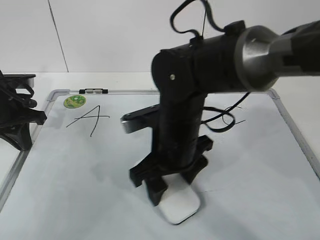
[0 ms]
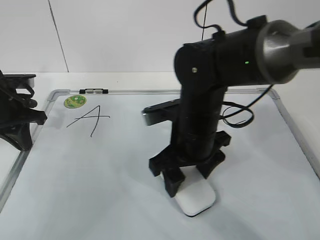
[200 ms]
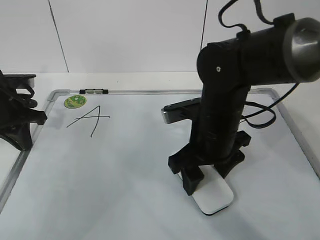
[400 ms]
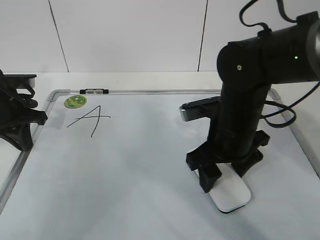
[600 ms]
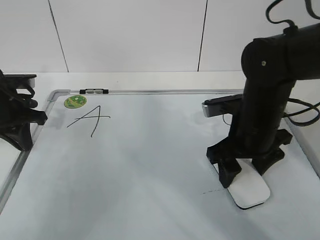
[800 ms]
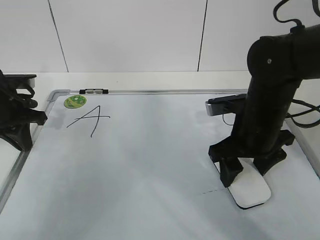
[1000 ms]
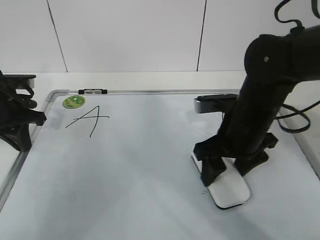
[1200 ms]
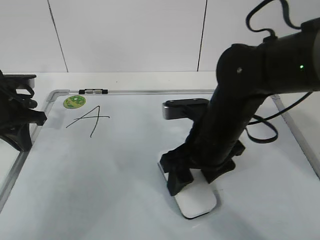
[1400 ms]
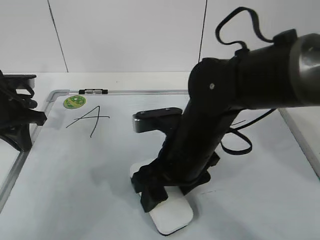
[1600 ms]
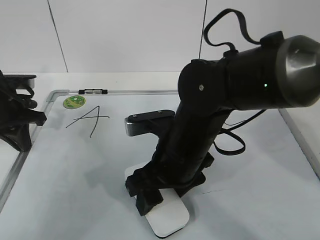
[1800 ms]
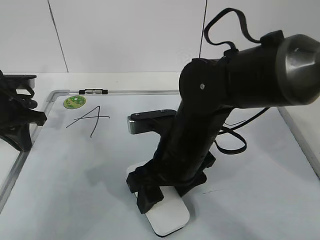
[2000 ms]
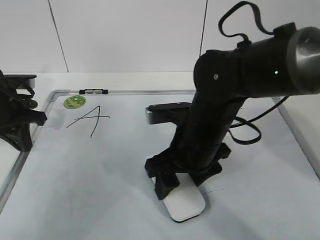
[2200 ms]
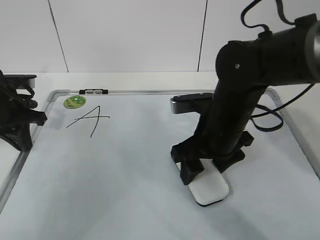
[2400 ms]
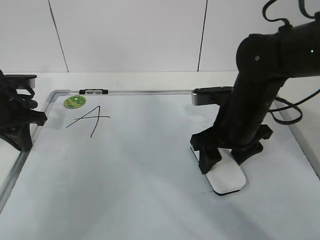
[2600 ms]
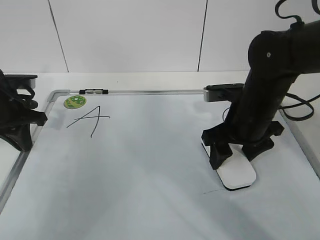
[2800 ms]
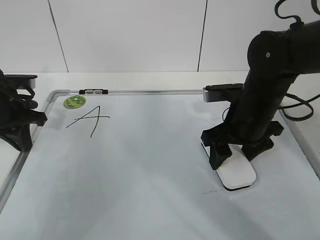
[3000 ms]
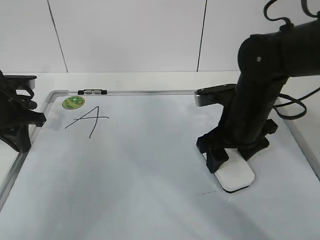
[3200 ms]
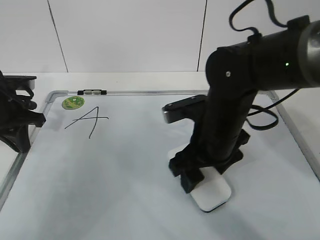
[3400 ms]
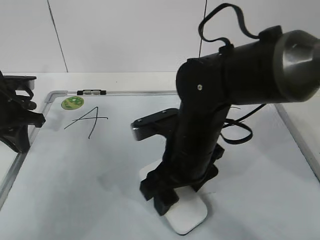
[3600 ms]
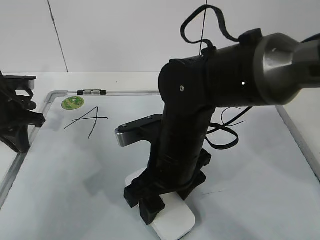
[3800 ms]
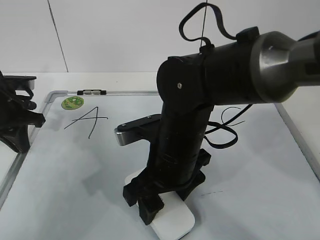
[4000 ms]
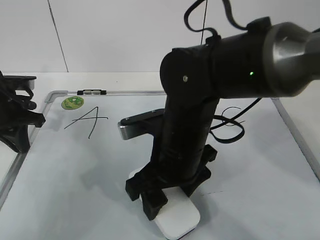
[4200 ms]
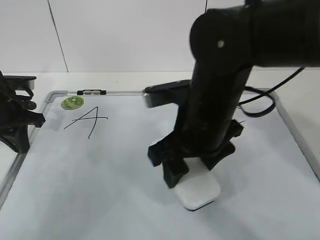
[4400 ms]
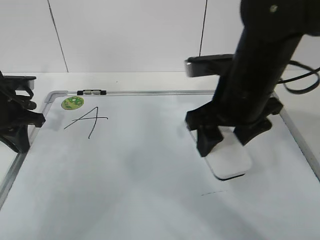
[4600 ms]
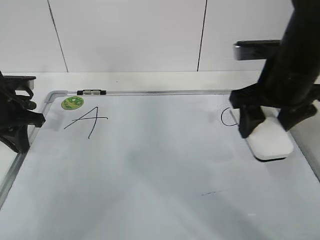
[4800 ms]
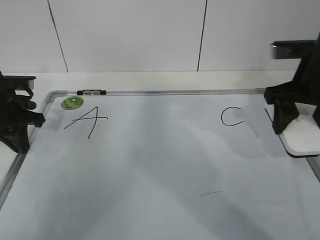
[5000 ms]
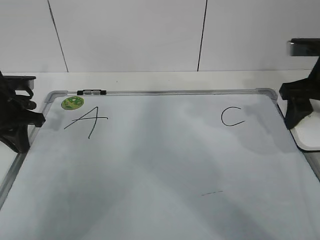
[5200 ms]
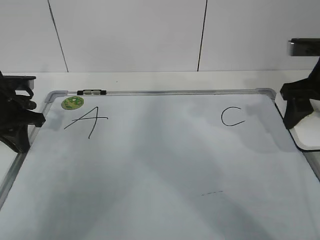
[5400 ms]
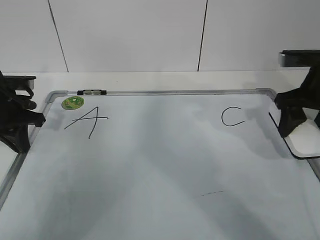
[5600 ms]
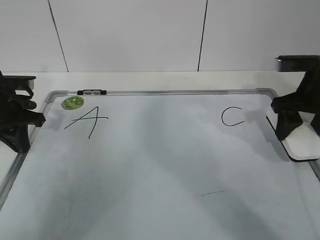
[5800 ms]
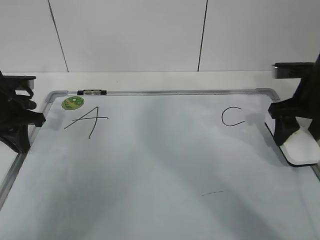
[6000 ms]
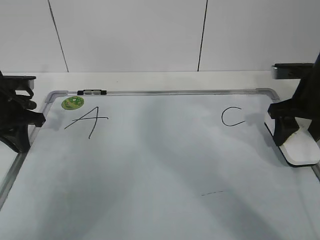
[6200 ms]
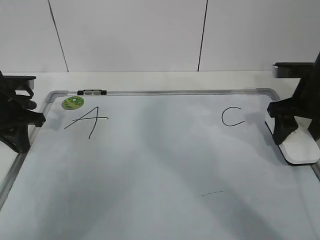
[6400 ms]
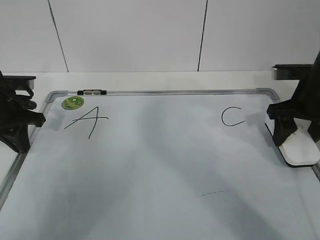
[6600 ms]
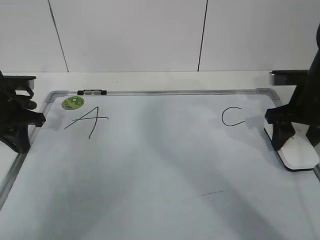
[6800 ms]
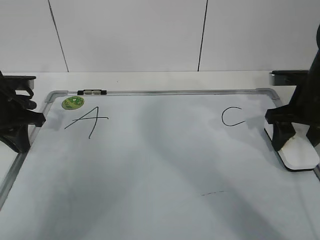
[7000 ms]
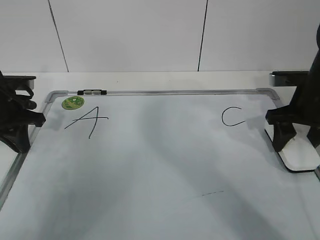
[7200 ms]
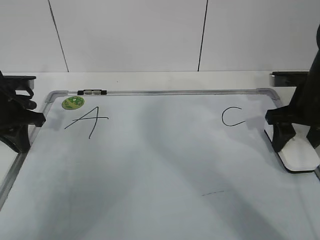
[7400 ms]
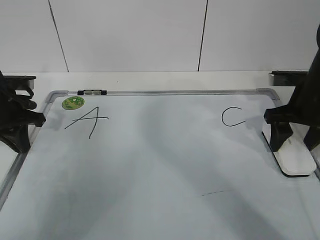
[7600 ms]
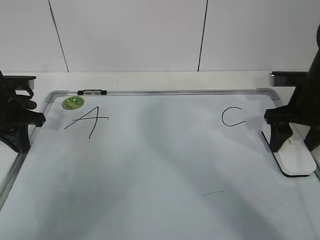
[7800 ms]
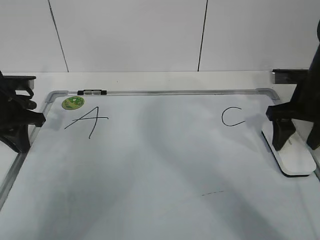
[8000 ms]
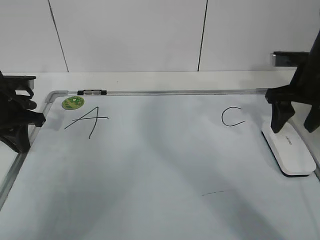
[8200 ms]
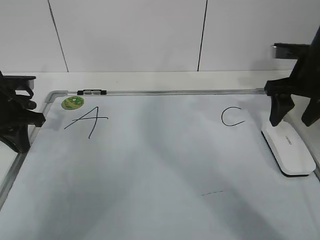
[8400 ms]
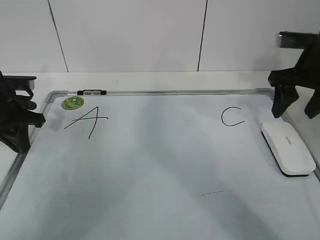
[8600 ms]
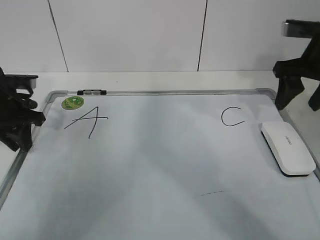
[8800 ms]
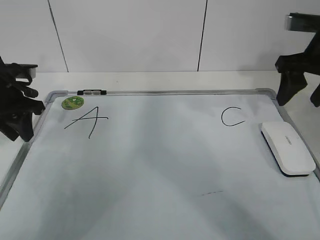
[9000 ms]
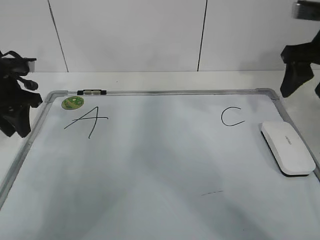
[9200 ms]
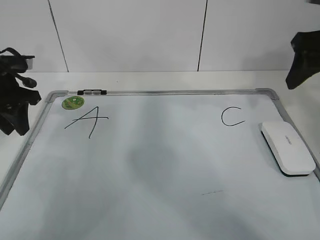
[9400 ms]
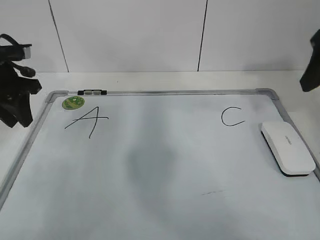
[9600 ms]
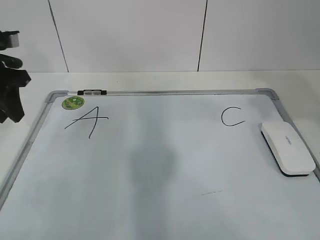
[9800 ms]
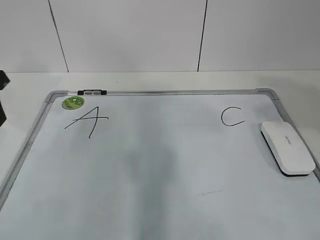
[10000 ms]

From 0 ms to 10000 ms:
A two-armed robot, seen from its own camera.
Task of the whole recording: pick up the eraser on the blackboard and erase the letter "B".
Step, from 0 ms to 2600 ms: Put down the eraser with your right hand.
From 0 ms to 1400 ms: The right gripper moves to the right, roughly 5 cm.
From 1400 ms to 2800 ms: The right gripper travels to the right by some 5 cm.
From 2800 ms to 4200 ms: The right gripper shifts approximately 15 cm to the left and backward.
From 4200 ms to 5800 ms: The right gripper travels to the right and forward by roughly 25 cm.
From 5800 ms to 7200 ms: There are only small adjustments of the grippers.
From 7200 ms to 8600 ms: The right gripper shifts approximately 5 cm upward.
From 8600 ms to 10000 ms: The right gripper travels backward and upward by some 20 cm; the left gripper heads upward and backward, covering roughly 15 cm, and opens up.

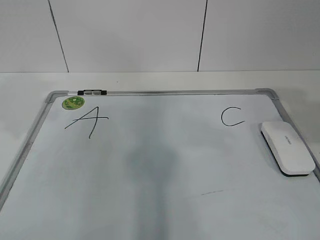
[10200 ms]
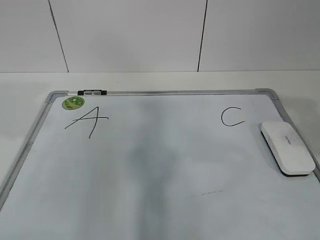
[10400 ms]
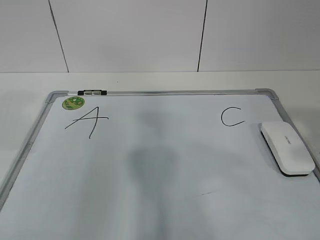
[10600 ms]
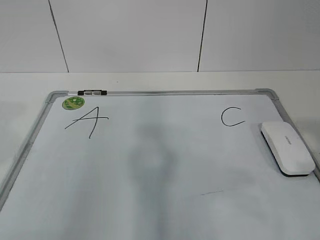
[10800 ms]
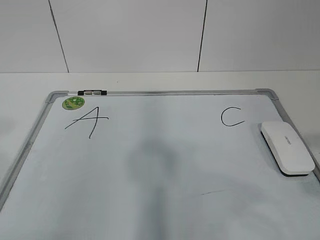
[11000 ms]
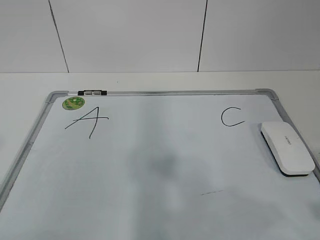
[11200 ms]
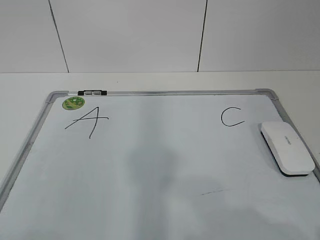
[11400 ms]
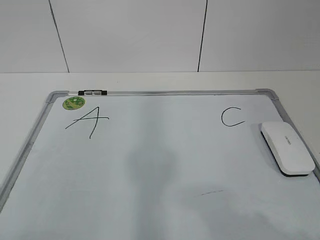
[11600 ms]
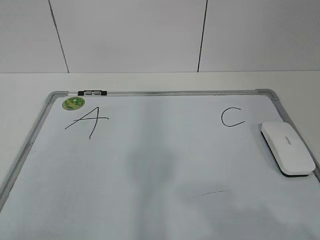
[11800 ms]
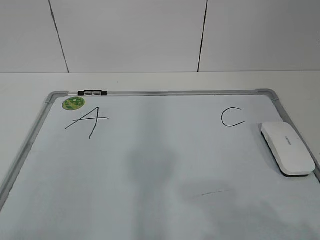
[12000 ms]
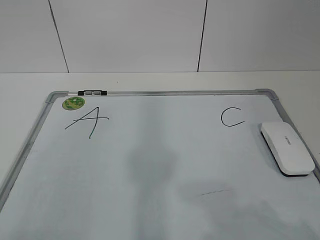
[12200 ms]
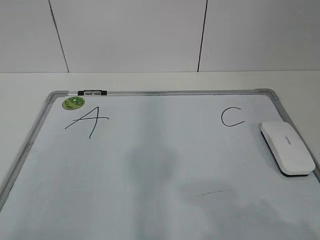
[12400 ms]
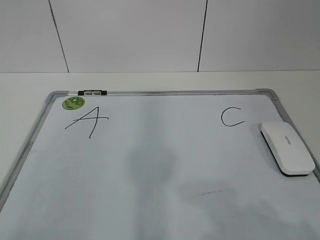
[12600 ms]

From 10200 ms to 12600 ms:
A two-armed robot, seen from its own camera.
Task of the whole recording: pick up the eraser on the blackboard and erase the letter "B".
From 10200 ms to 11400 ms: The left gripper goes approximately 25 cm backward. The right gripper moves backward and downward, some 20 cm, and closes.

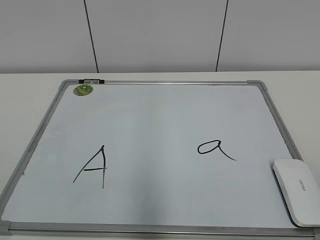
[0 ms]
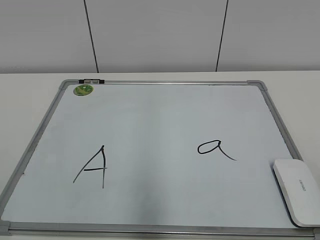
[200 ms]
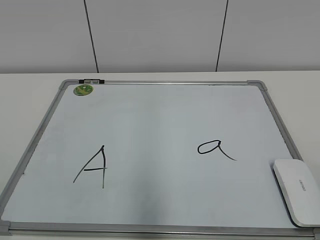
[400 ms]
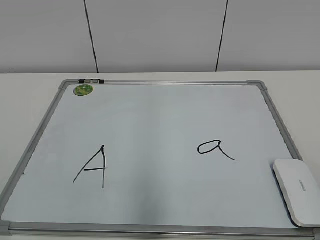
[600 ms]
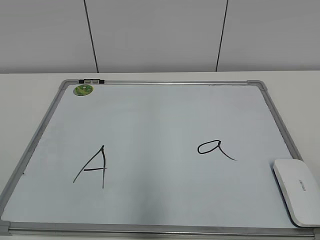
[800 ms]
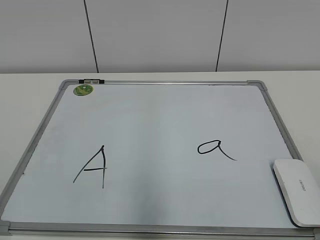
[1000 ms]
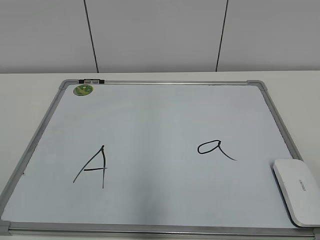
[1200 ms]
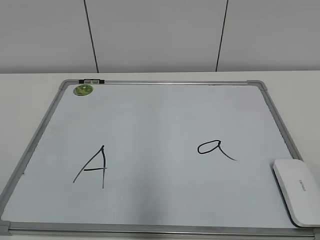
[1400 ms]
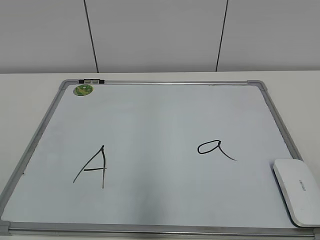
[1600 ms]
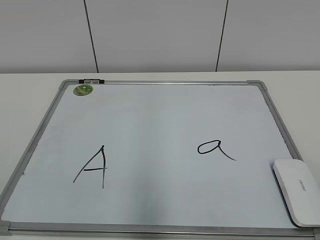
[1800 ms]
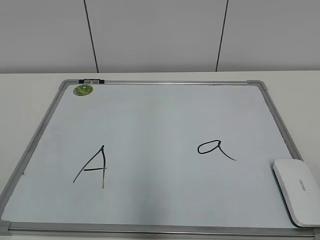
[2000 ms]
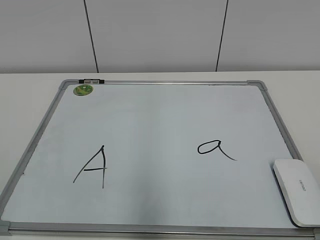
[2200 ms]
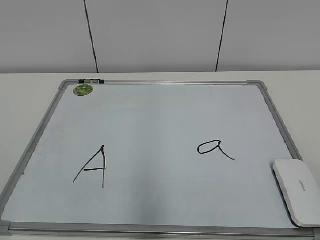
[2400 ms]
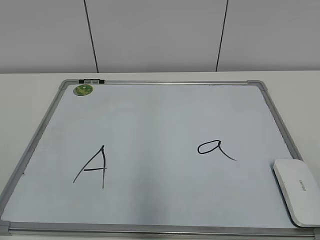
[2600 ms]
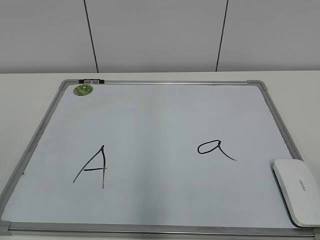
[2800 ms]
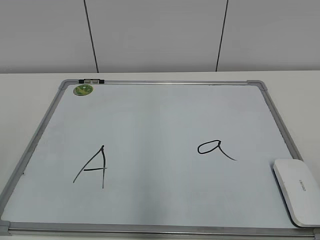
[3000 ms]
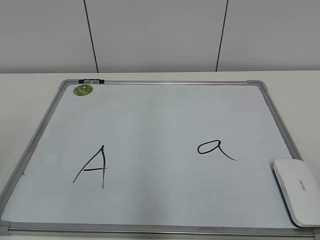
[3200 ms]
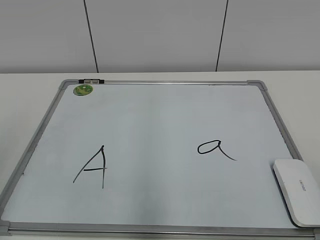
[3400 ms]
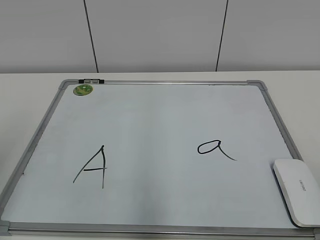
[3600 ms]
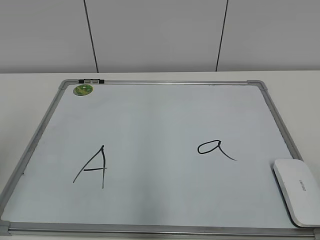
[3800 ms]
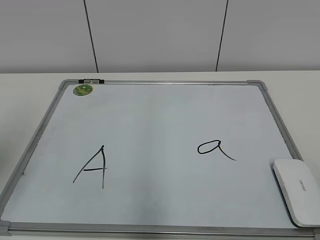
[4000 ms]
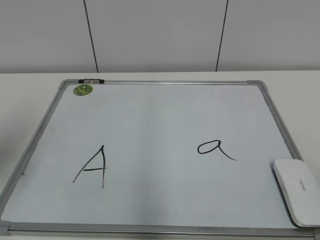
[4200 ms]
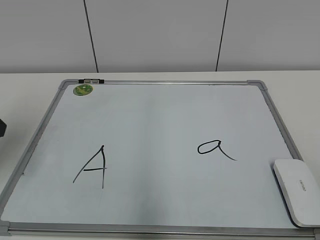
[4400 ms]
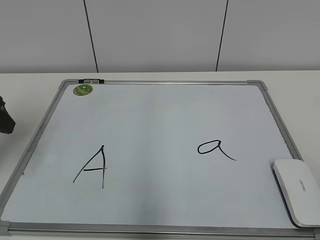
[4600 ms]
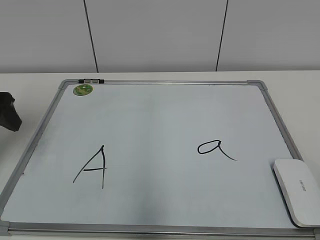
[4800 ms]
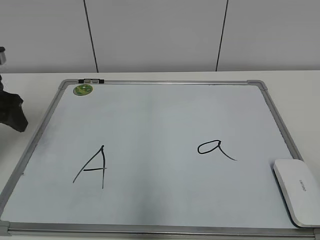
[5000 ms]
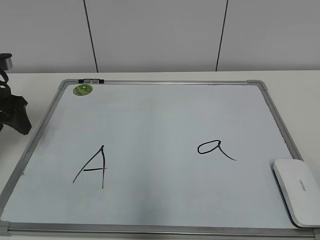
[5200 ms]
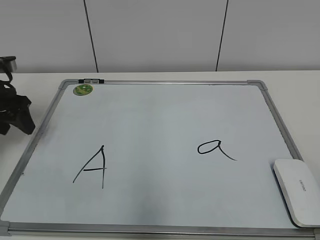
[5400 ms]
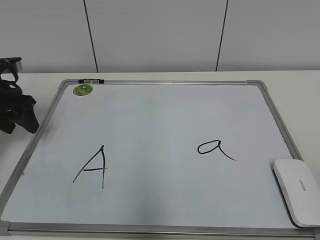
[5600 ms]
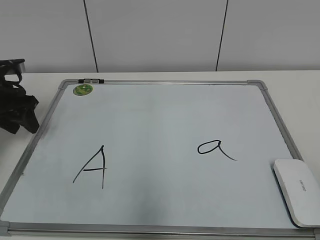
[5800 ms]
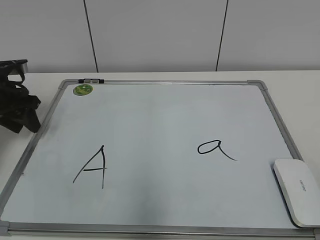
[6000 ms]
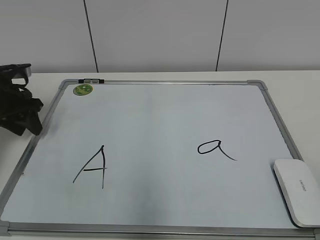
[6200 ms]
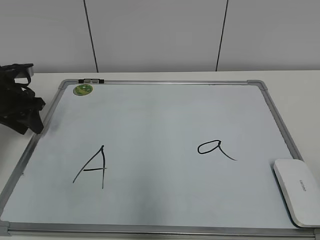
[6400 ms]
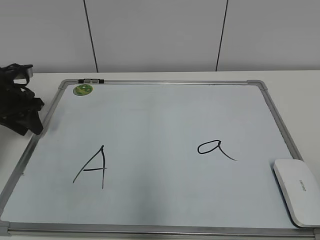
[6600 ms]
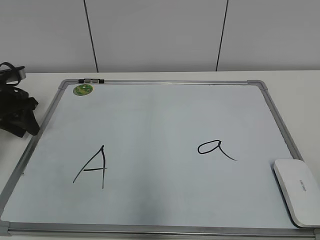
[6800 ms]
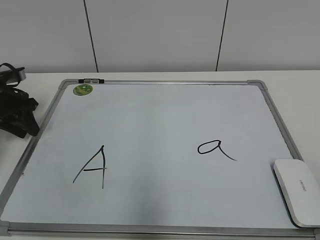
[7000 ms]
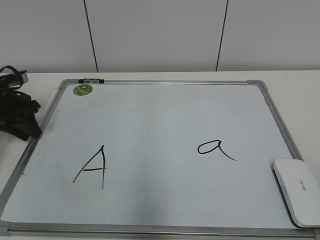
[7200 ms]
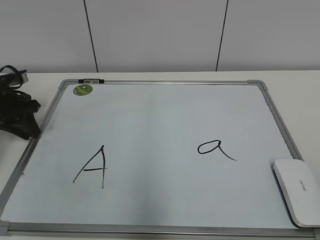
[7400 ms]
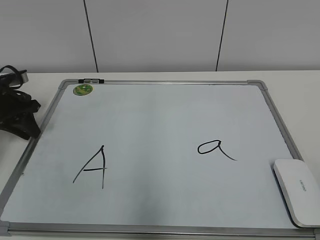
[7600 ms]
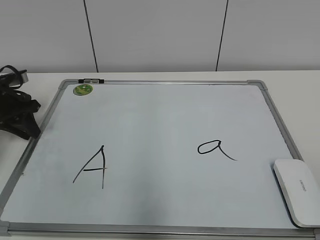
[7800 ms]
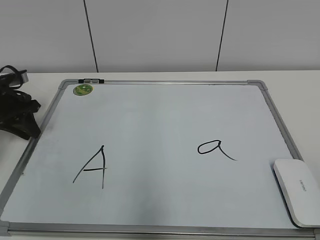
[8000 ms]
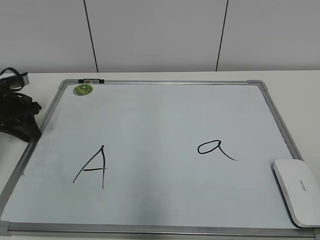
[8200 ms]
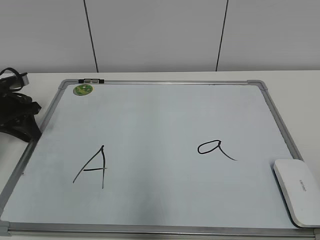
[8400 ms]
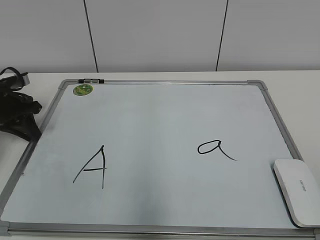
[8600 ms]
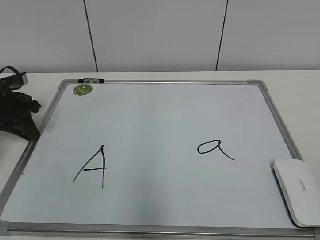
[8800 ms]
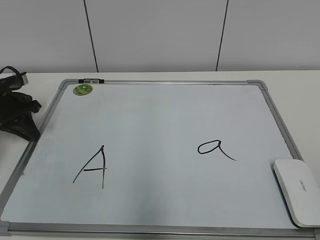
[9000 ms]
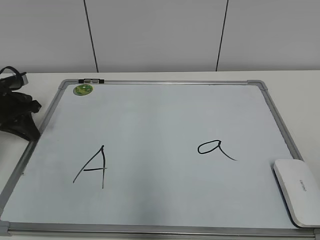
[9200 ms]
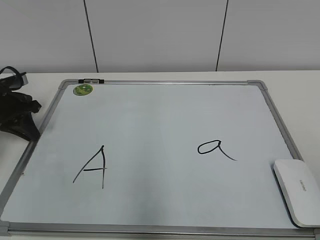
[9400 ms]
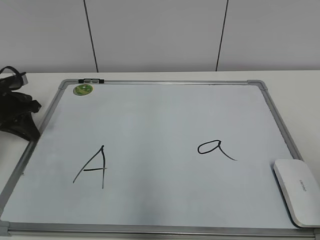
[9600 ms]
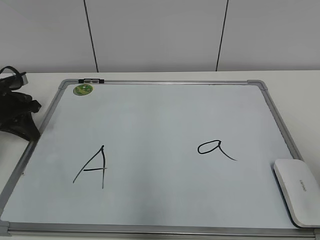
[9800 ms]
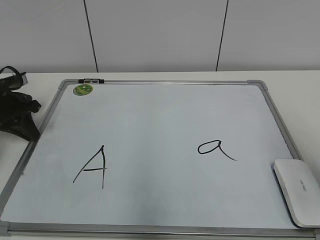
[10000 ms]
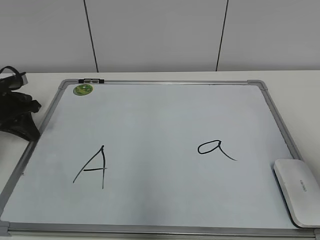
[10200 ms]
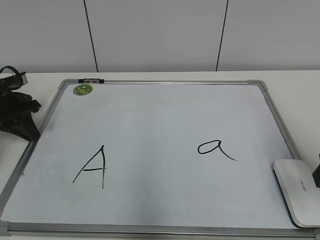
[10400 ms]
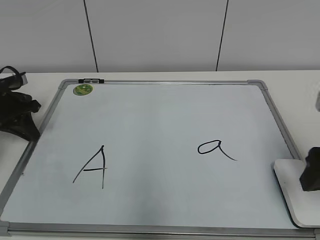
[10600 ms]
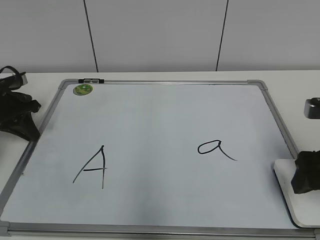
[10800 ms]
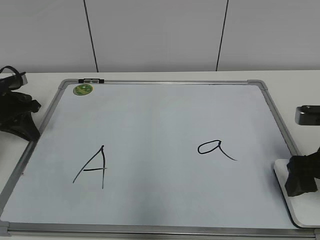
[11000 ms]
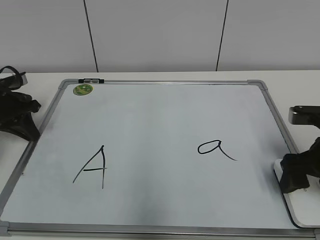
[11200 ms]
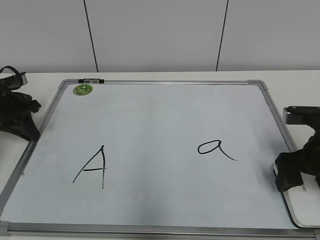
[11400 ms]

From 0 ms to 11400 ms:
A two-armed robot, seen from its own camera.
Task of the whole recording: pick up the eraser on the blackboard and erase the letter "a".
Step, from 0 ms to 8600 ms: Hold the drawing board steady with your left hand.
From 2800 ms to 4200 ms: The left gripper shifts some 20 cm forward.
From 4200 ms to 5600 ms: The left gripper is displaced forward and downward by some 20 cm.
From 5600 ms to 7200 ms: The left gripper changes place by about 5 cm, and closes its fingers.
From 7200 ms to 8600 ms: Both grippers stay put.
From 8600 ms to 10000 ms: The right gripper heads forward, covering roughly 15 cm.
From 10000 ms to 11400 ms: The right gripper heads downward and forward, covering about 20 cm, and opens its fingers.
